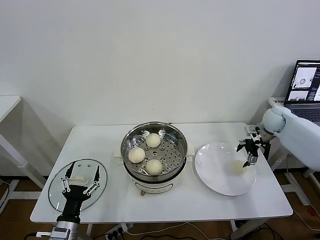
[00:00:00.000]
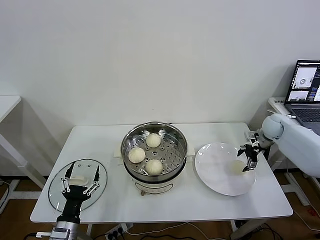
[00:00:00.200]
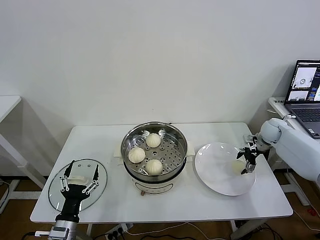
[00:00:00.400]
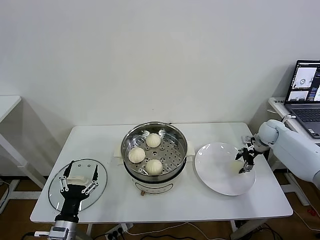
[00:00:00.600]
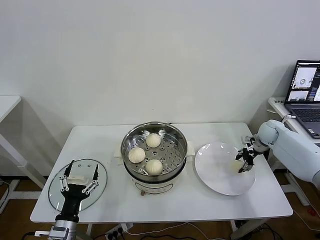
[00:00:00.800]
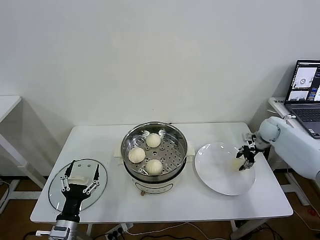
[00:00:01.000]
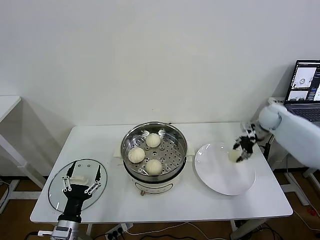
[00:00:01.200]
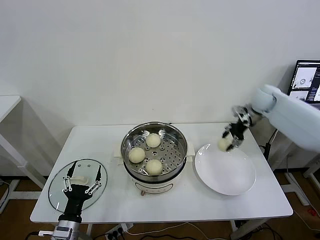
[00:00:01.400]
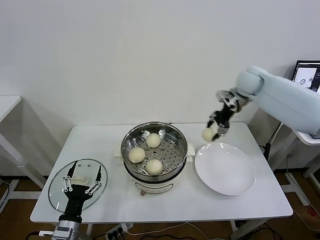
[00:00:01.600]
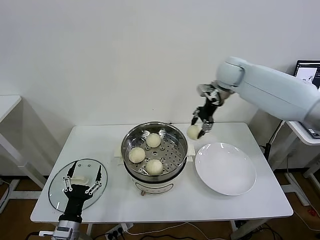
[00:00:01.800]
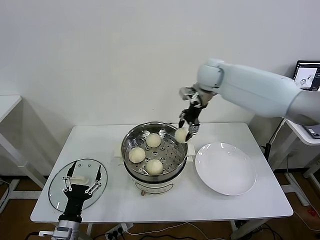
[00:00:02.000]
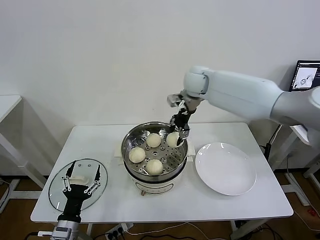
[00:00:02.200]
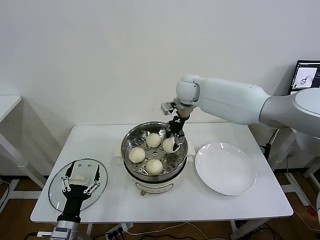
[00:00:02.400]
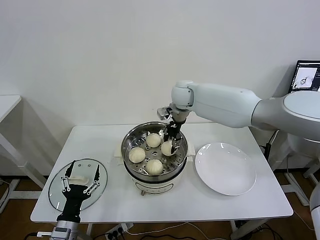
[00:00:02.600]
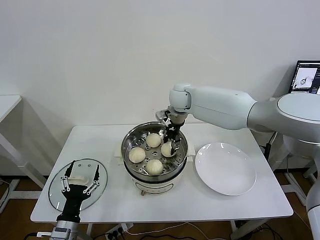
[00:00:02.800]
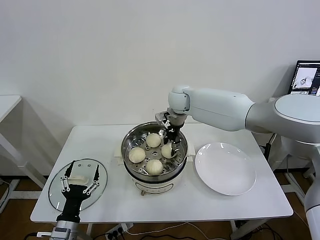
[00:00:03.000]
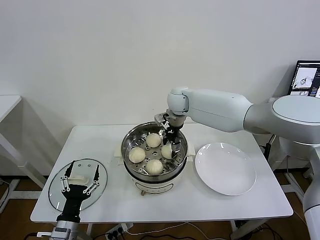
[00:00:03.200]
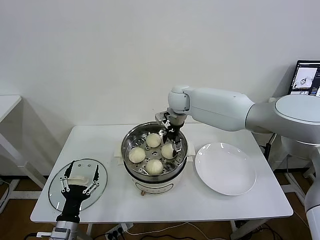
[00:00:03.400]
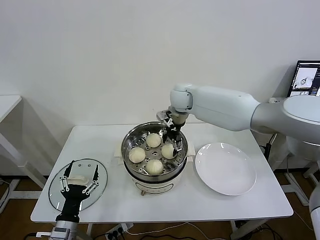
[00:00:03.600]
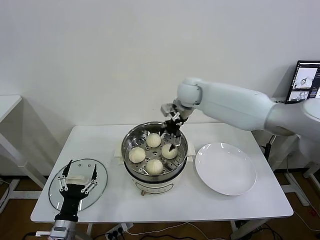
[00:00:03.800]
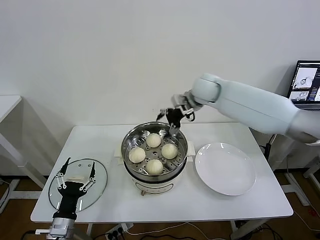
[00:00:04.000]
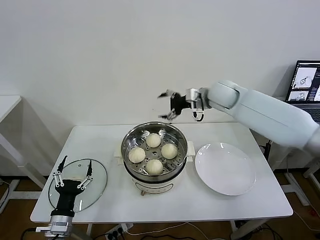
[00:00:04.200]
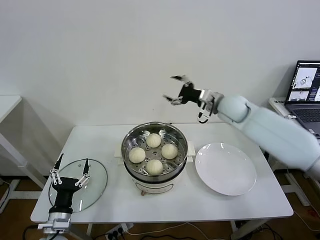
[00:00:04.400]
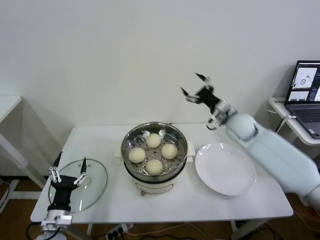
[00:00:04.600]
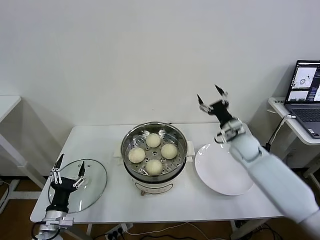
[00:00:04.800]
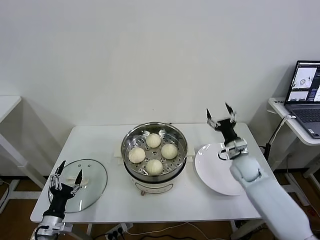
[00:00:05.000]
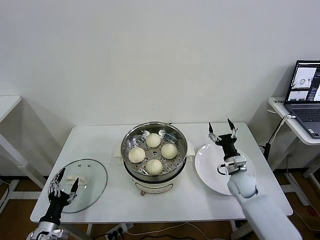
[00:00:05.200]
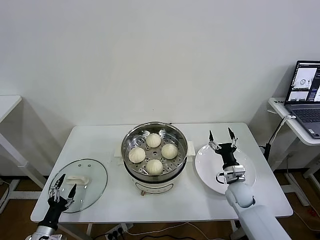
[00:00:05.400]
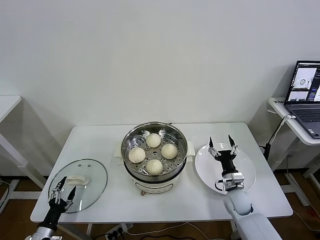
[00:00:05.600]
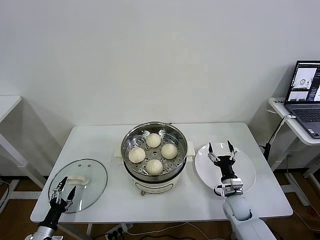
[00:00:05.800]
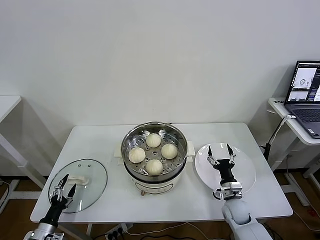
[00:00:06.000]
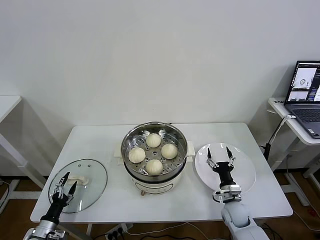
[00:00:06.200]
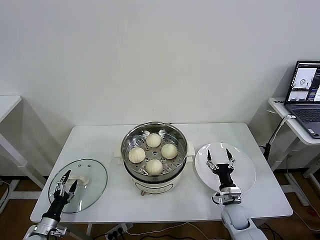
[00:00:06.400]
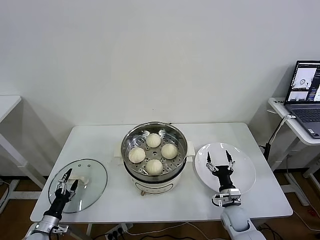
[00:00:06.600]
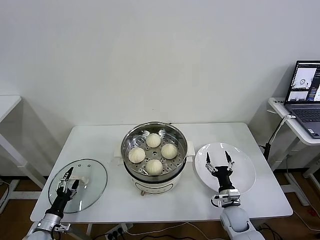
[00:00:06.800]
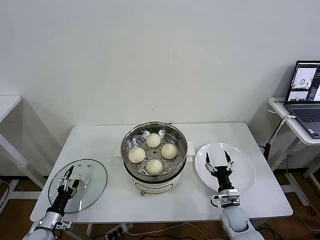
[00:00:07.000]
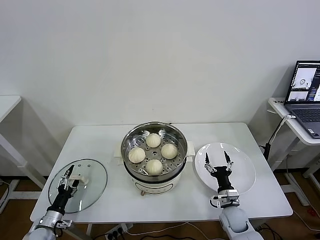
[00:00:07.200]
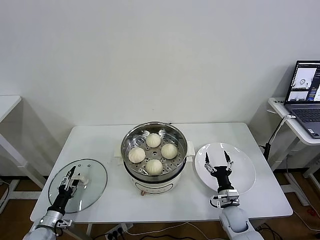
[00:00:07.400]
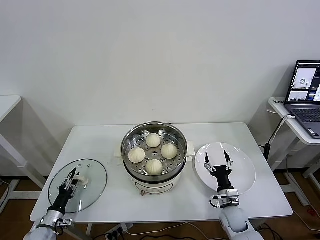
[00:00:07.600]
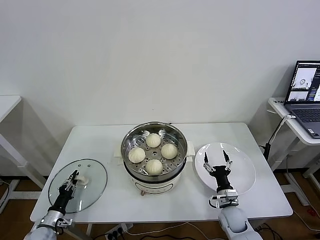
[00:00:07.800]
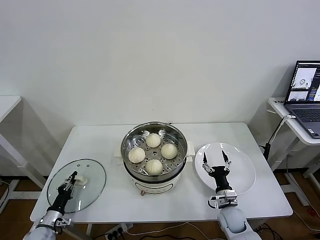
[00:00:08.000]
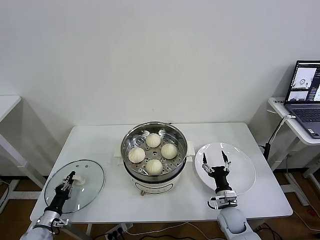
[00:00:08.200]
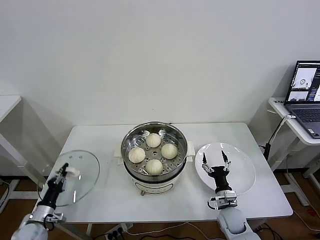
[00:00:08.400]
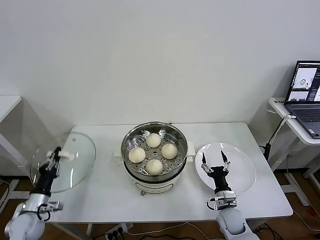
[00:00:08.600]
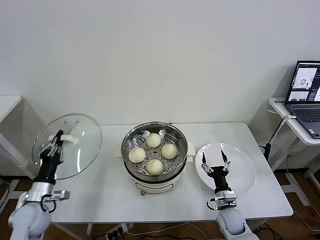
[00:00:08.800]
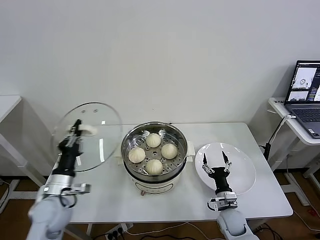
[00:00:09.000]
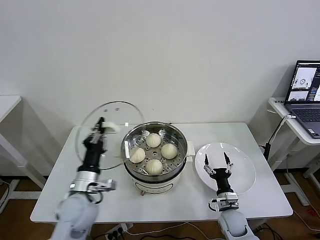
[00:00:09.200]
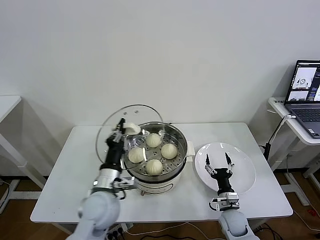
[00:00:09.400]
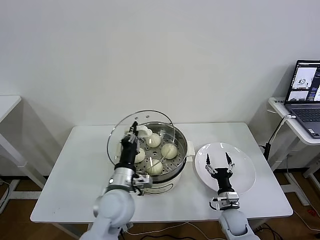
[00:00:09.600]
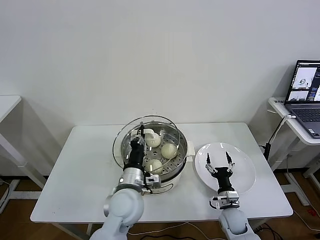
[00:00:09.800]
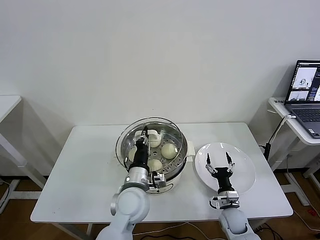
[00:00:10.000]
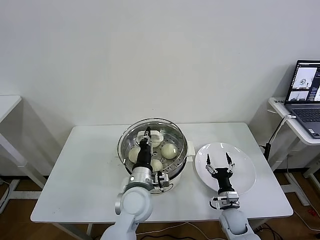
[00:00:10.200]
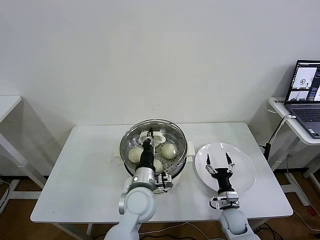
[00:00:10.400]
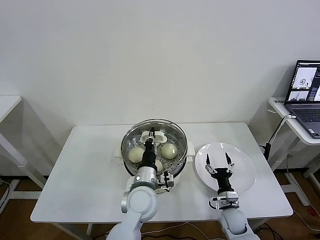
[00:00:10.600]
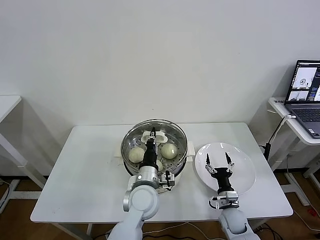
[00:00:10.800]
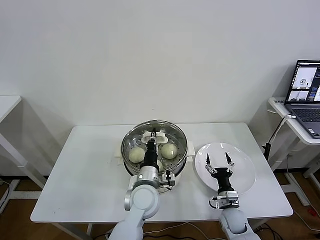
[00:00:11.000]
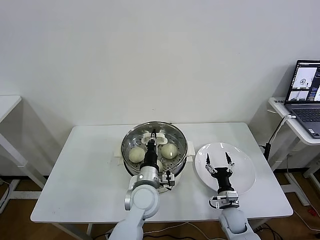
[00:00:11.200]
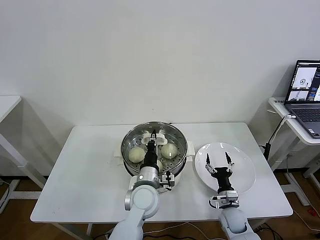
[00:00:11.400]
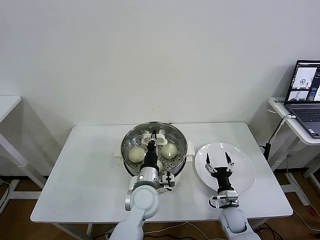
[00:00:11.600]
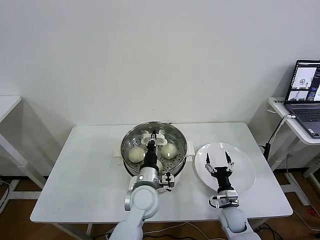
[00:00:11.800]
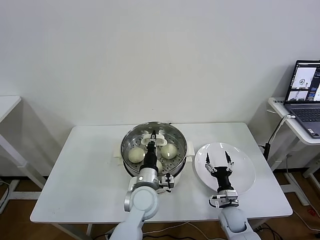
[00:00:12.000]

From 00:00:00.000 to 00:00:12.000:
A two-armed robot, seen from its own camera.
Task of the whole recording: take steamed baozi put them in steamer then cover it.
Step, from 00:00:01.000 to 00:00:03.400: Place the baozi on the steamer with right gripper.
Step, from 00:00:03.600 to 00:00:08.000: Grasp the pot lid with left gripper.
From 00:00:00.000 to 00:00:01.600: The right gripper moves upward and to the left, approximately 20 cm, and closes up.
From 00:00:01.600 to 00:00:03.000: The right gripper shifts some 20 cm to the left.
From 00:00:03.000 to 00:00:04.400: The right gripper travels to the right by roughly 15 cm, and opens up.
From 00:00:04.400 to 00:00:06.000: The right gripper shifts some 40 cm downward and backward. Meanwhile the left gripper shifts roughly 20 cm to the left and downward.
From 00:00:06.000 to 00:00:07.600: The left gripper goes some 5 cm forward, and closes up.
From 00:00:07.600 to 00:00:09.000: The left gripper moves upward and to the right, about 25 cm, and closes its fingers.
From 00:00:09.000 to 00:00:10.400: The left gripper is displaced to the right by approximately 25 cm.
From 00:00:10.400 to 00:00:12.000: The grippers make only small movements.

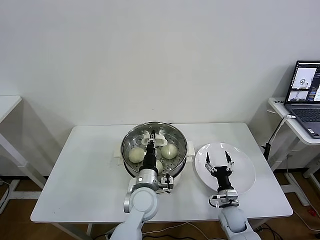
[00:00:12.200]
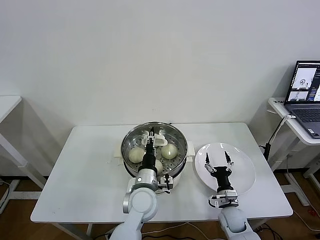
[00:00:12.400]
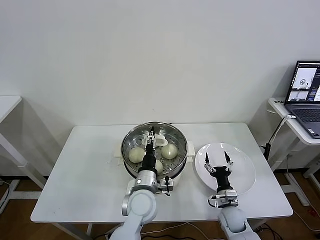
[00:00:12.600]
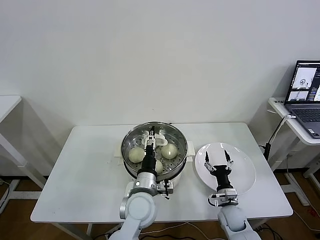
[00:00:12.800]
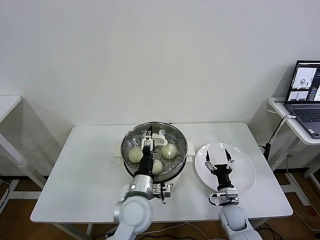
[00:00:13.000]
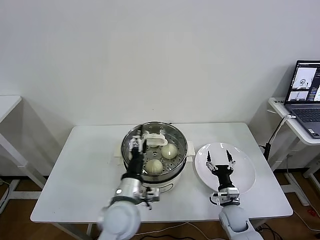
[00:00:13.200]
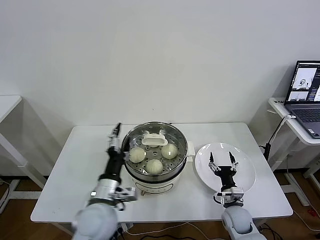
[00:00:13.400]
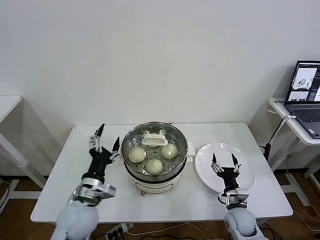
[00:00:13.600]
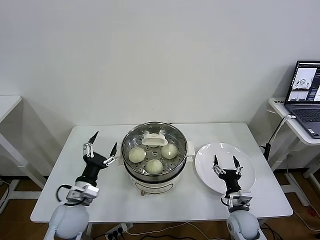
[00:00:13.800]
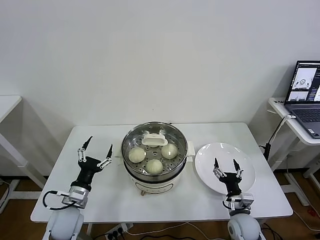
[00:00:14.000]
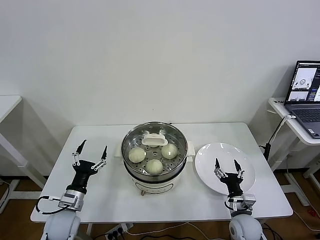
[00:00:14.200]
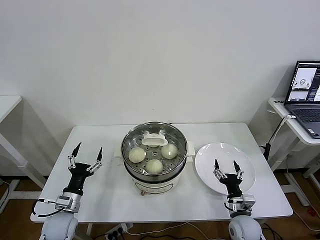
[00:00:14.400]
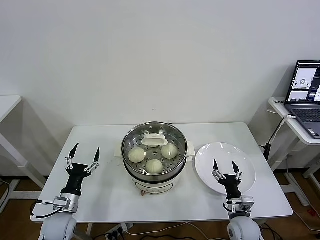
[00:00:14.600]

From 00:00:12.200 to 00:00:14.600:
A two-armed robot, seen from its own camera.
Task of the whole recording: take steamed baozi put them in steamer then cover it.
From 00:00:12.200 to 00:00:13.400: The left gripper heads to the left, backward and upward, covering about 15 cm, and opens its fingers.
From 00:00:13.400 to 00:00:14.600: The left gripper heads to the left and downward, covering about 25 cm.
